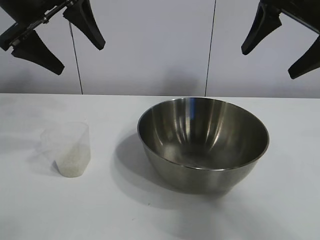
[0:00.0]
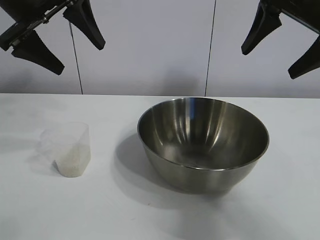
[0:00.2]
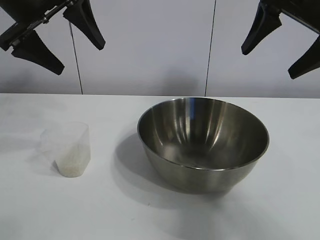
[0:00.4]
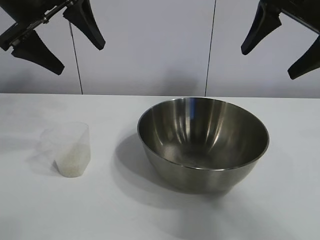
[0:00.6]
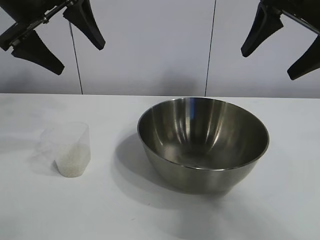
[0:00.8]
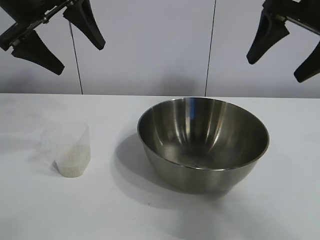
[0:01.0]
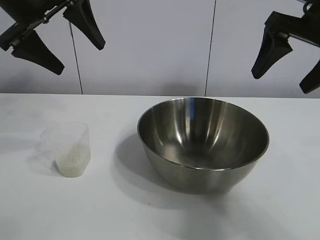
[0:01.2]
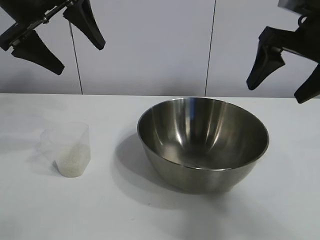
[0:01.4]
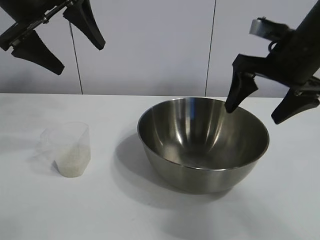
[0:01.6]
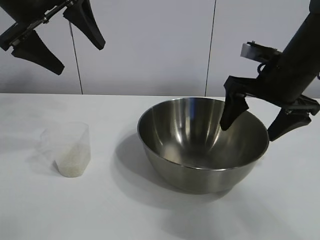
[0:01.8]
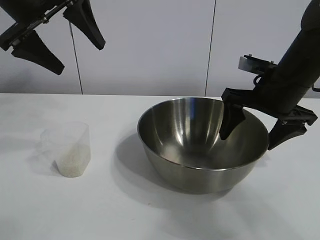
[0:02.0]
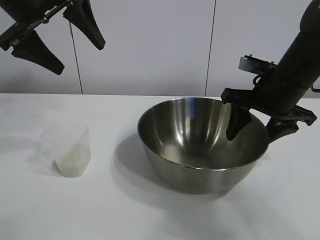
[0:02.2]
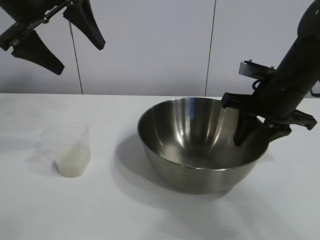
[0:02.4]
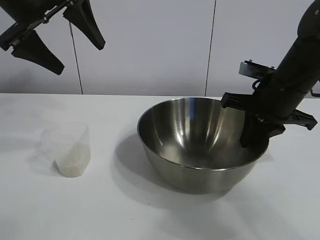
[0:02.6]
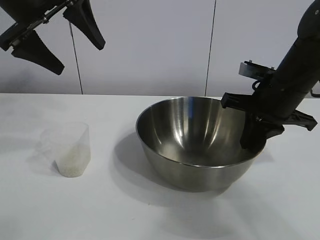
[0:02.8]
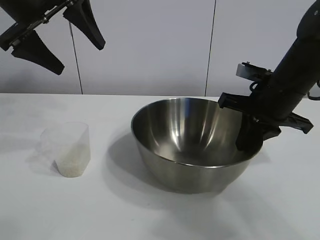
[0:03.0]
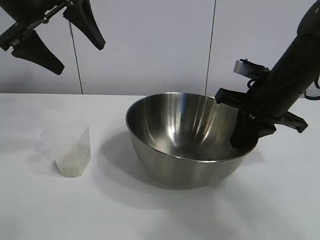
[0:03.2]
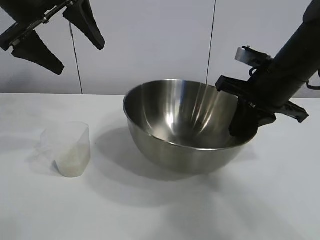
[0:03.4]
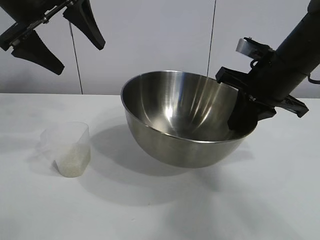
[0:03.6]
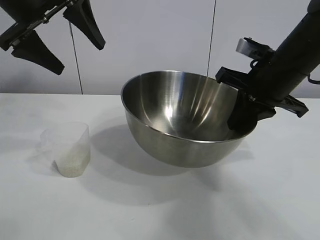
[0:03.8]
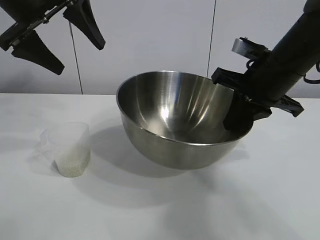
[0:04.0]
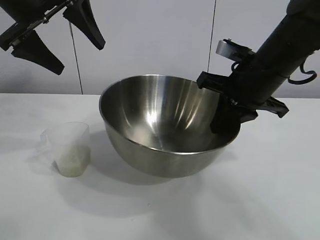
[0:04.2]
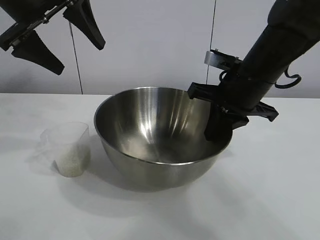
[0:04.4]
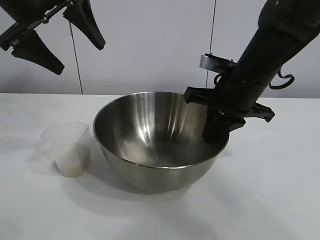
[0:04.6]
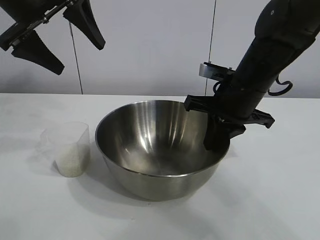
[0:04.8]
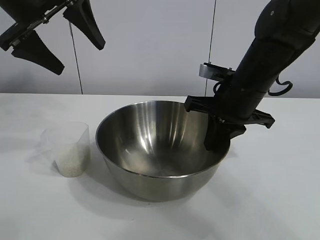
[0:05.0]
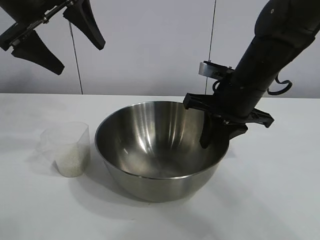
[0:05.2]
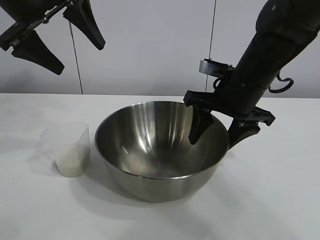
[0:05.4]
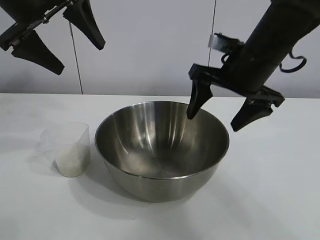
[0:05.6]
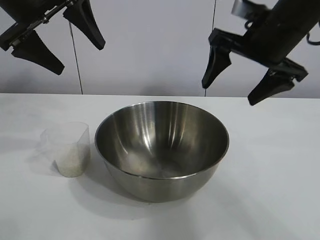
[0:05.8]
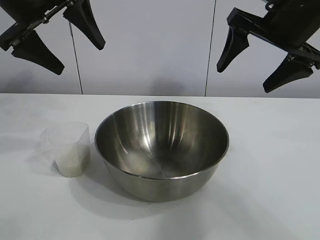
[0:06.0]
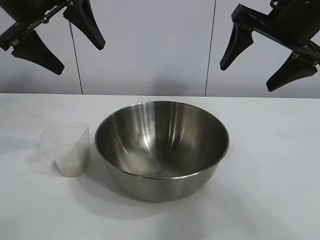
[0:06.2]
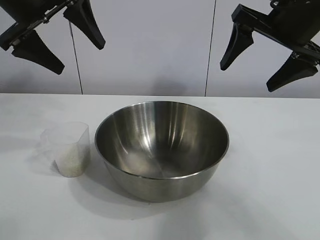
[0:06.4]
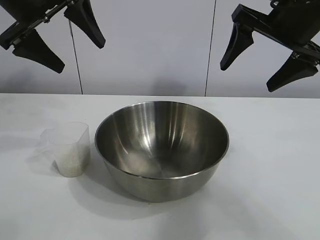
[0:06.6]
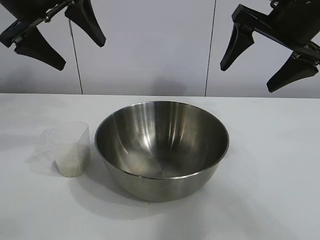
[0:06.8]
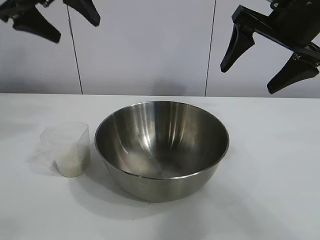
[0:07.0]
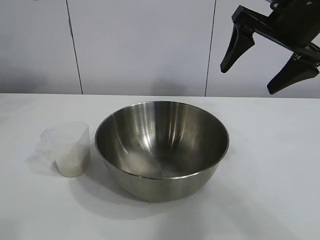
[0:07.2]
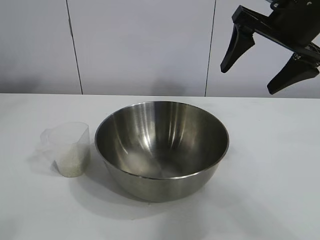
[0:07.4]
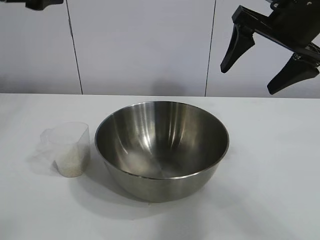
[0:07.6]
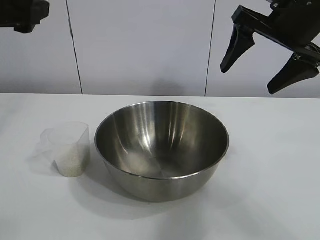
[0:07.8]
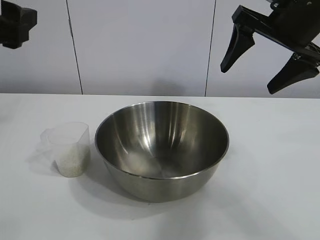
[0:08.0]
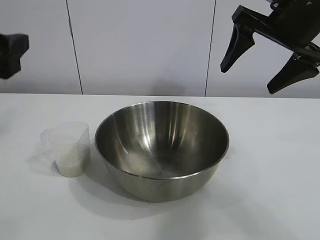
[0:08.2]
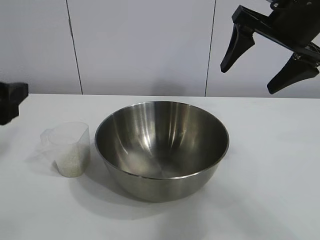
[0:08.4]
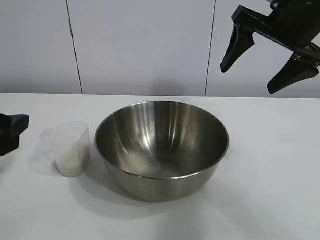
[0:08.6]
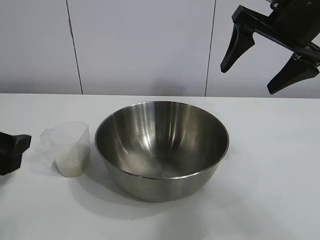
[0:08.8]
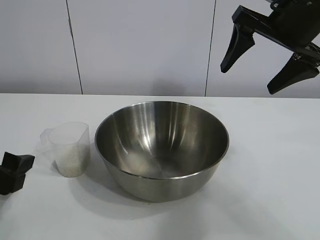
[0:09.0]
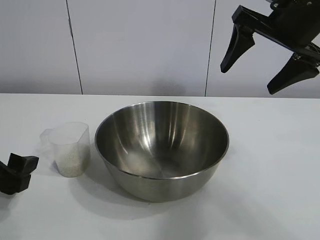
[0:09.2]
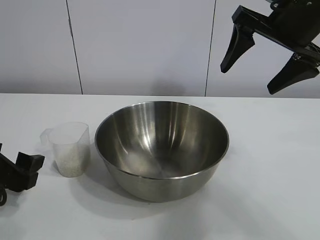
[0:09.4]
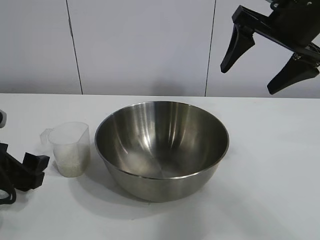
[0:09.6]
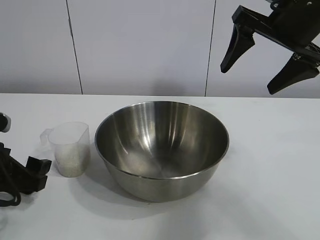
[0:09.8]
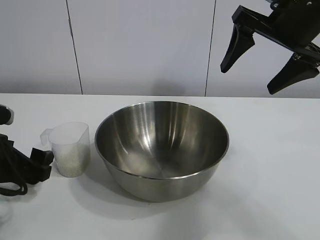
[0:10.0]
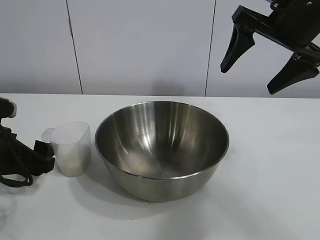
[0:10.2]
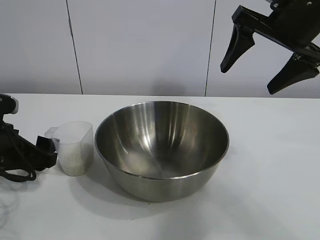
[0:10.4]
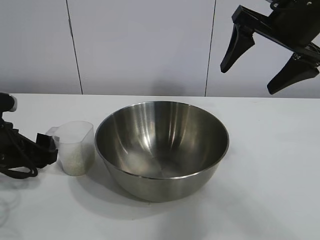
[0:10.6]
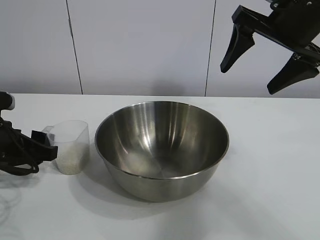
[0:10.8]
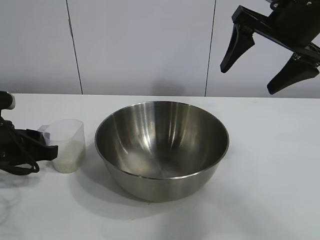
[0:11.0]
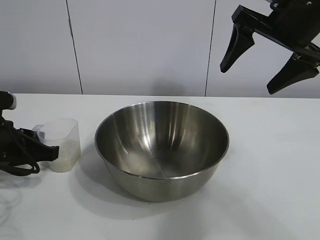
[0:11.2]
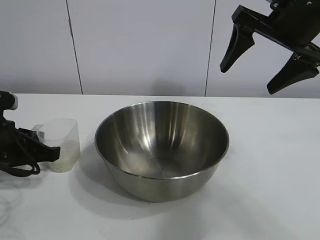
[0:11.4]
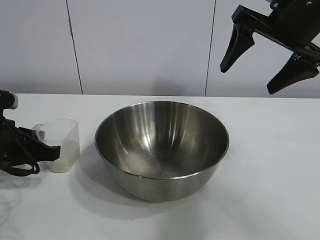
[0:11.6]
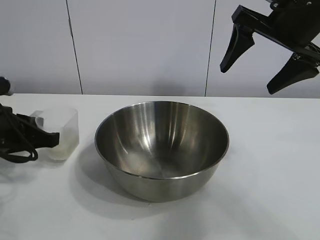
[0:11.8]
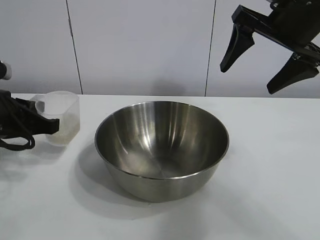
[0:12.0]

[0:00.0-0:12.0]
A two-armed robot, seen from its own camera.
Task of the whole recording: the right gripper grasp the rice container and place it in the center of the table, the left gripper grasp the rice scoop and pour the rice into the rice container.
Step, 0:00.8 to 0:05.4: Move the bowl in the center of view with right gripper.
Step, 0:05.6 to 0:11.6: Grasp the cup with rice in it with left gripper.

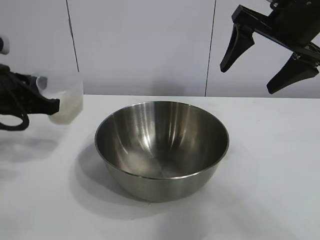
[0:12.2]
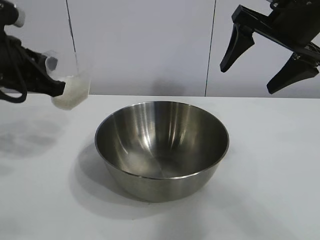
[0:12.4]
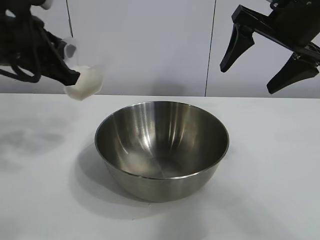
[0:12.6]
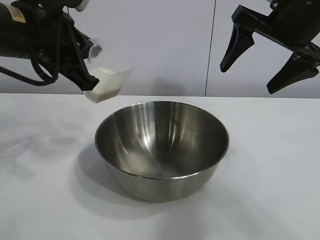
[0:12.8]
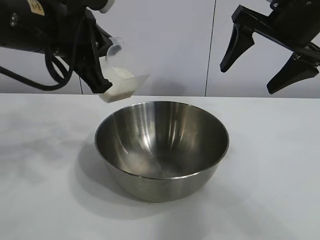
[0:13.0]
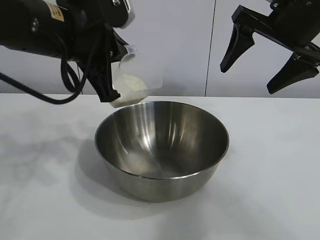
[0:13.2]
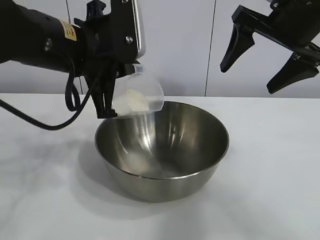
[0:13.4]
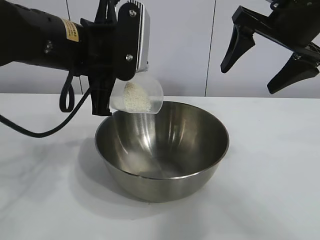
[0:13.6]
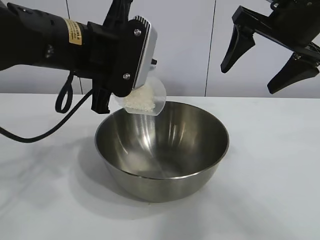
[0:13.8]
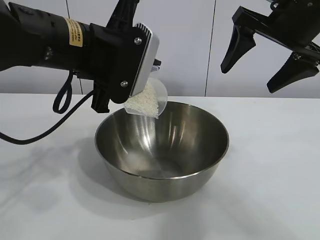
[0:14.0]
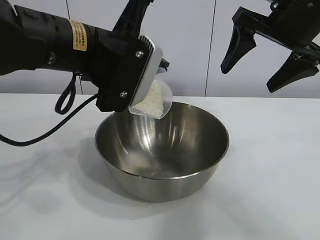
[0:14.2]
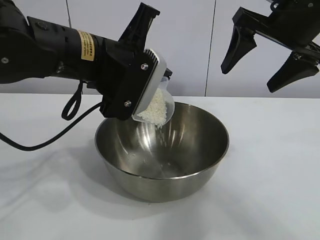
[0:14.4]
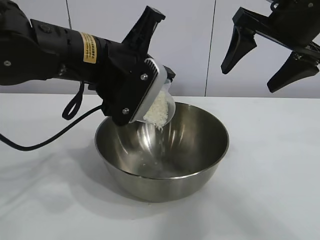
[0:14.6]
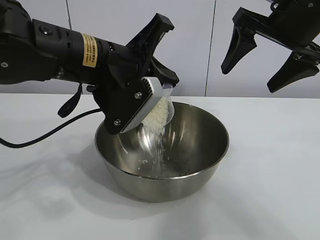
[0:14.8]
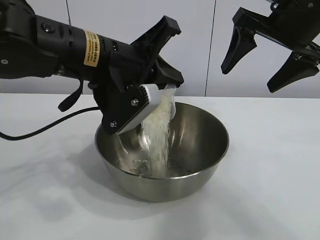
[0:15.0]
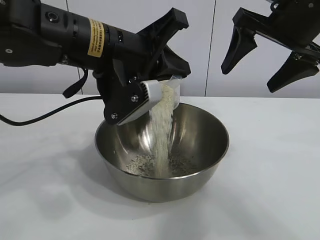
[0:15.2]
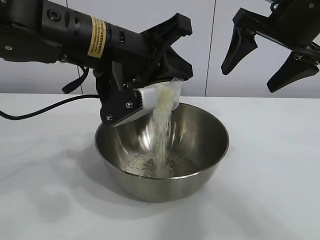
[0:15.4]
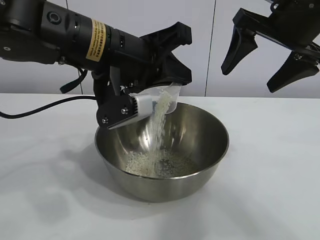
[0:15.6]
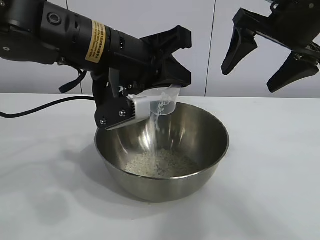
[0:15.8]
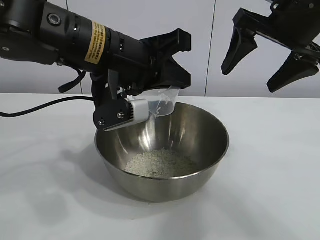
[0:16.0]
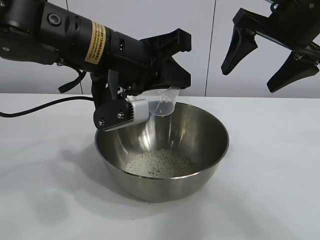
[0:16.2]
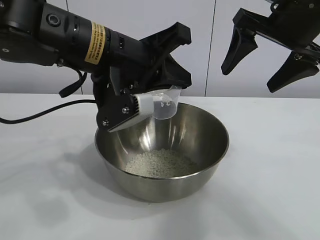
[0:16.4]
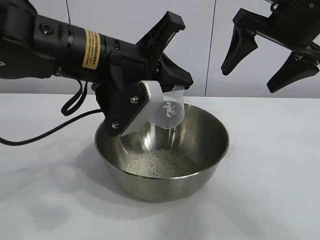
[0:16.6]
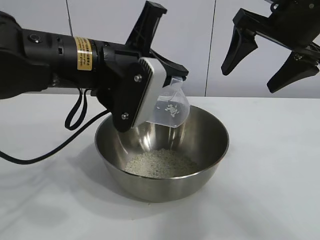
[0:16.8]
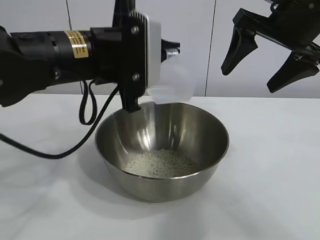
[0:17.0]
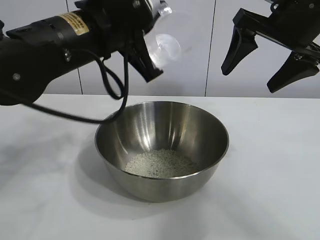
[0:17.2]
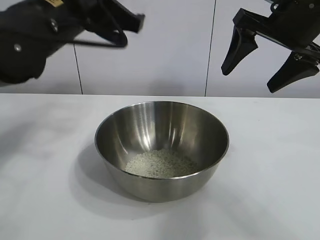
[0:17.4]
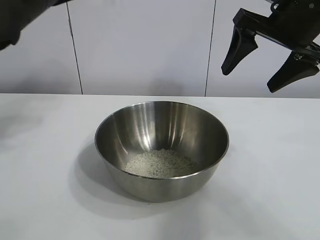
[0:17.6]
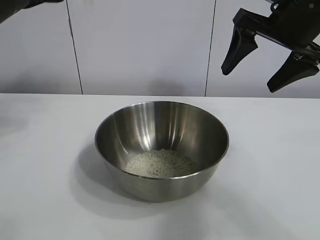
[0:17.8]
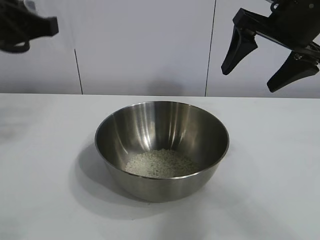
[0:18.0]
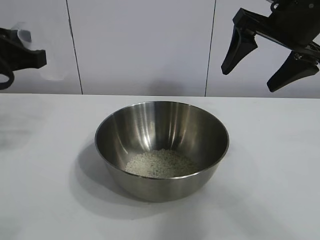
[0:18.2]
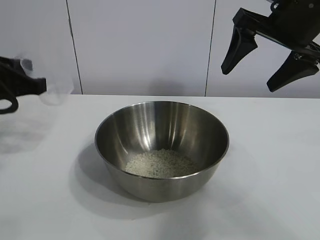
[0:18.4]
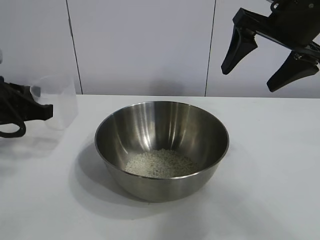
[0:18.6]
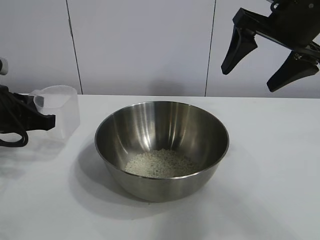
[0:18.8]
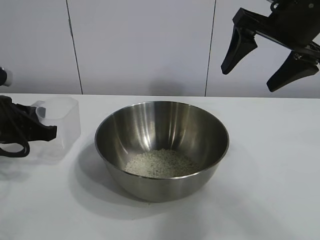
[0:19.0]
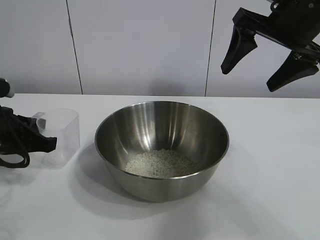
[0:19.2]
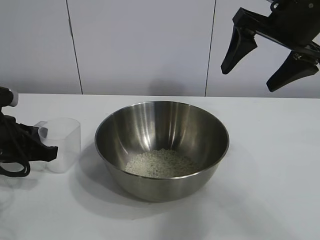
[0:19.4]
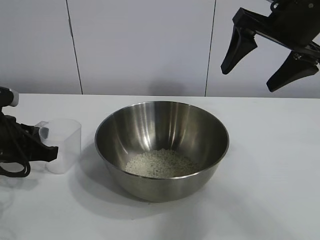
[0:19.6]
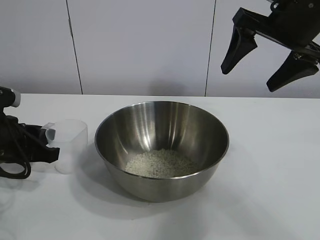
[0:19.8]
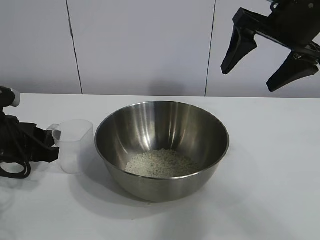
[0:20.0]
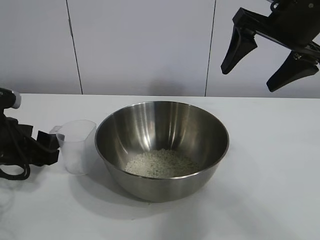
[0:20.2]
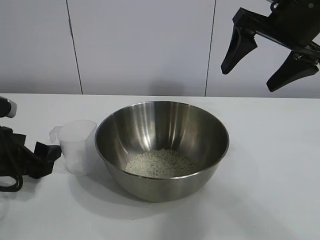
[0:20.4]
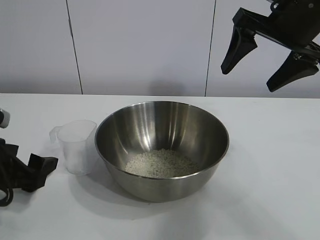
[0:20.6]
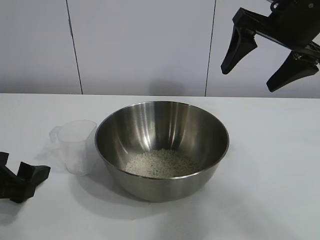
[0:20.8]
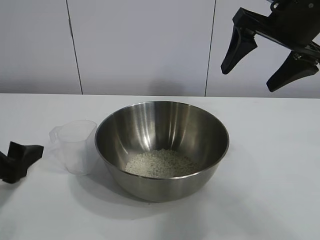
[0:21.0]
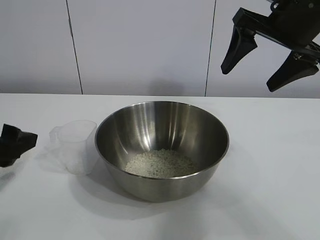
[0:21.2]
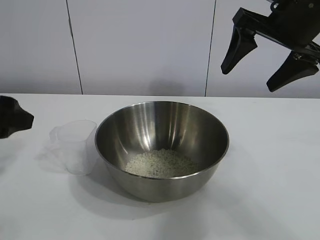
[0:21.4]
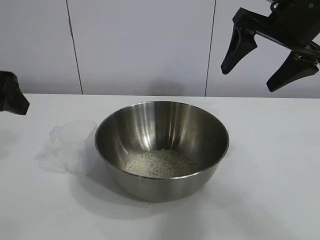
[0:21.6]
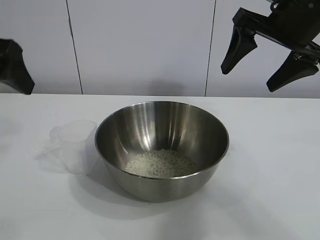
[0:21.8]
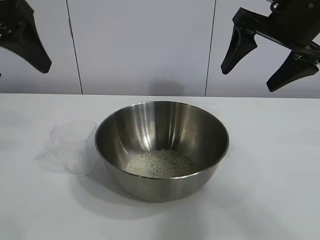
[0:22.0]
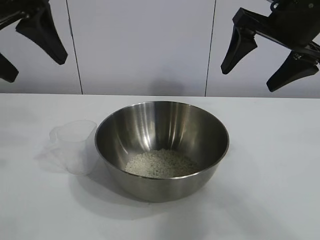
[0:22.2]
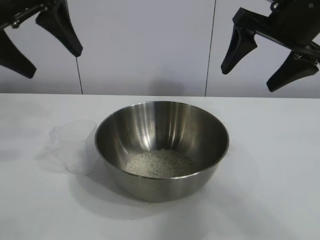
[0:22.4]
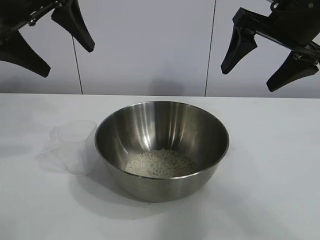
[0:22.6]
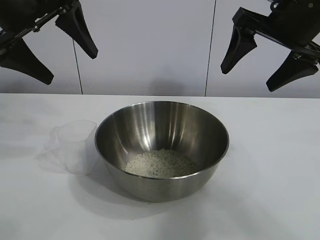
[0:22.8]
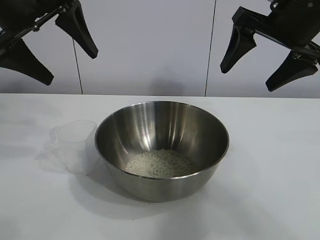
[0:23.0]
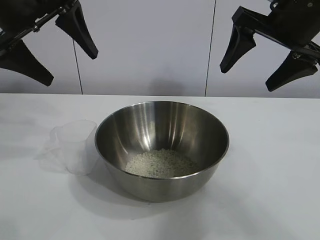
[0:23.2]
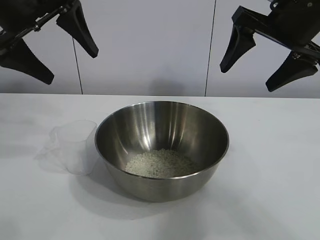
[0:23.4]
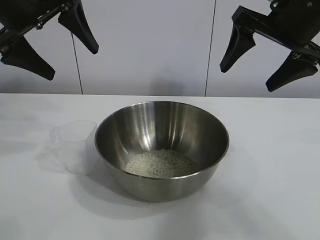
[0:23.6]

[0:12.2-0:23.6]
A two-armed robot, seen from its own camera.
Task of the whole recording: the right gripper grasp the rice container and place it in the center of the table, the left gripper grasp the rice scoop and pour the rice into the rice container.
Step, 0:12.2 to 0:16.4: Pour the rice from the cup into the bowl with the left gripper.
Step, 0:16.6 to 0:19.8: Place the cup on the table with the left gripper.
